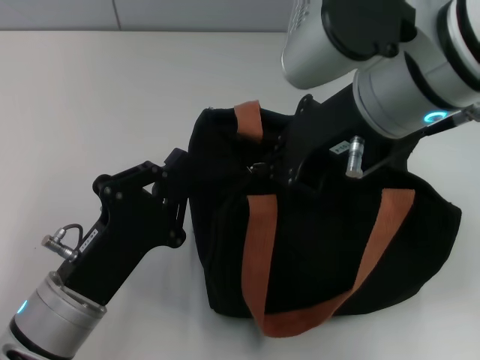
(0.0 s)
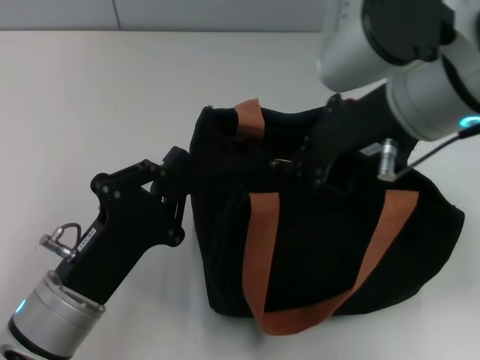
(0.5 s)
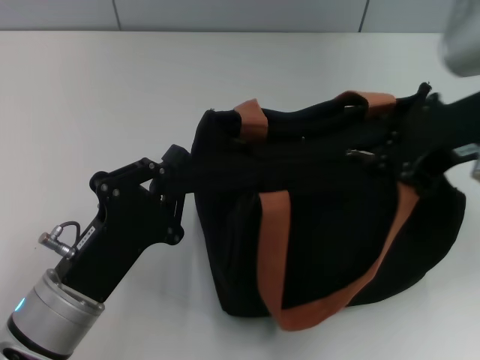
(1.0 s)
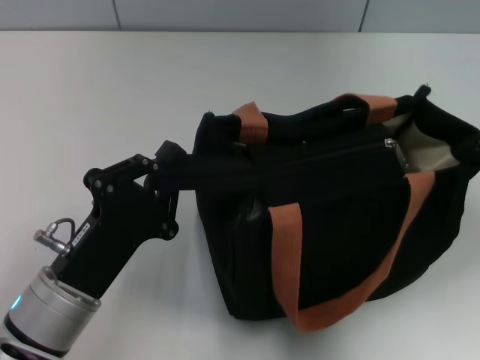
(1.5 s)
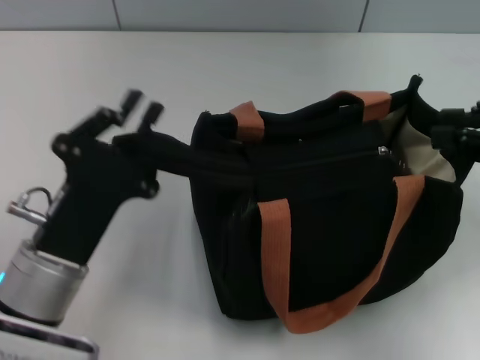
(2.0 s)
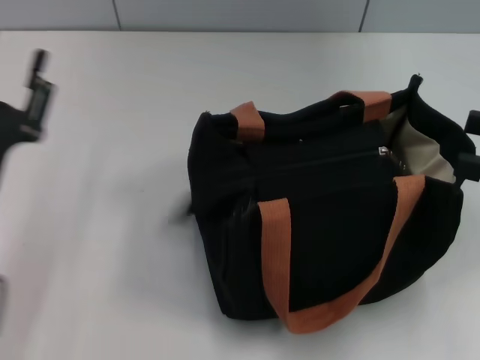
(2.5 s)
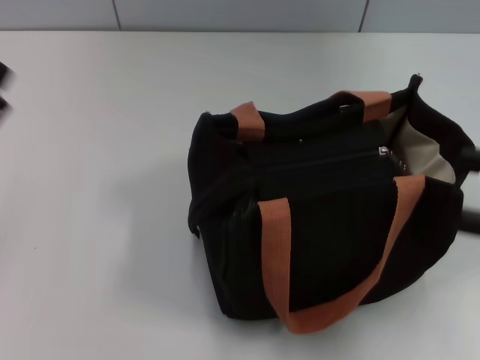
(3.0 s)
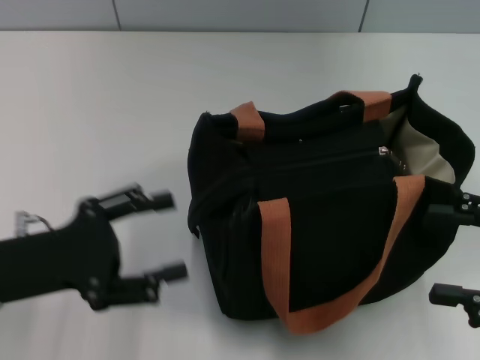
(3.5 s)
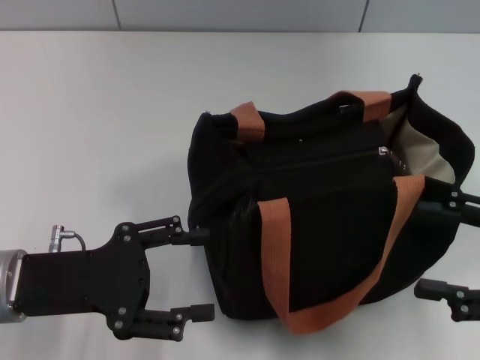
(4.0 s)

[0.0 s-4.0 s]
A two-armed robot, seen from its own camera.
0.0 to 2.0 s: The right gripper shifts about 20 cm to the right.
2.0 to 4.0 s: The right gripper shifts some 10 cm downward, and opens its fingers. The left gripper goes some 5 cm to the left, and opens up.

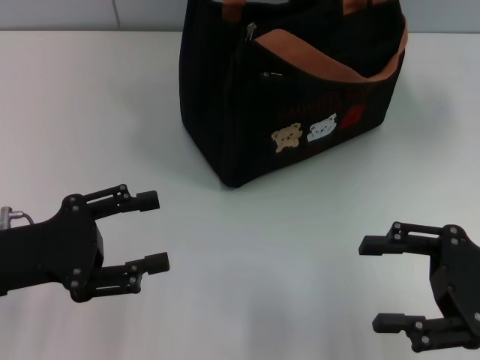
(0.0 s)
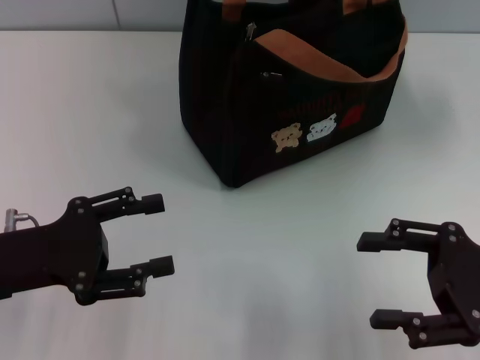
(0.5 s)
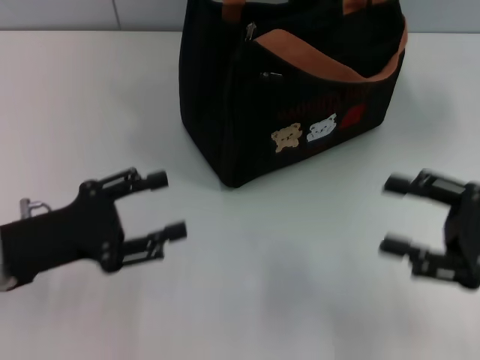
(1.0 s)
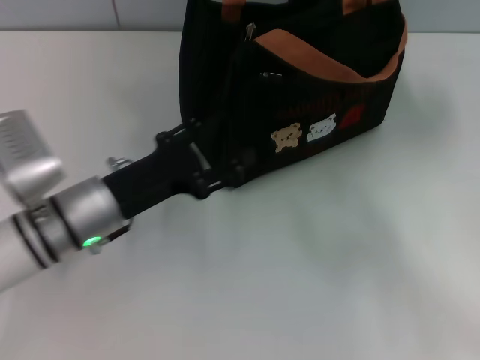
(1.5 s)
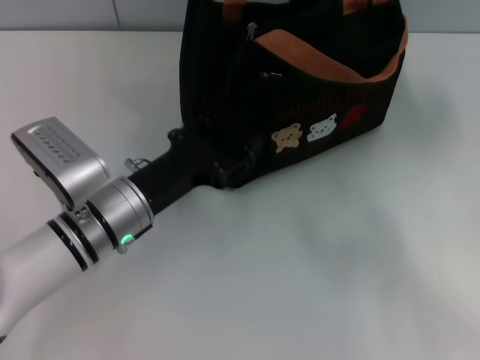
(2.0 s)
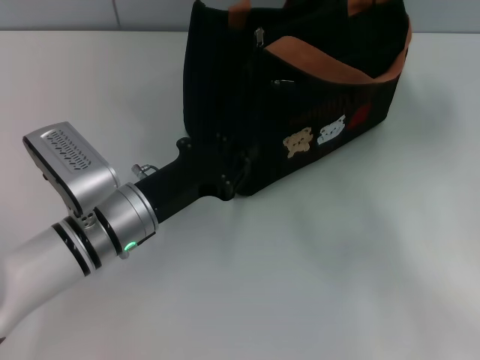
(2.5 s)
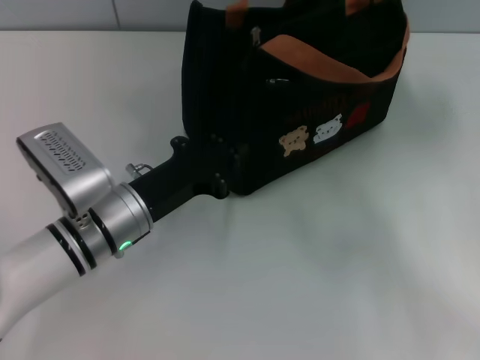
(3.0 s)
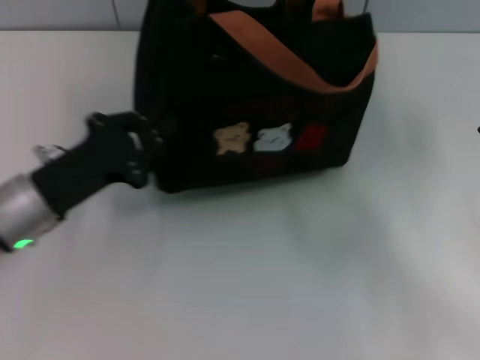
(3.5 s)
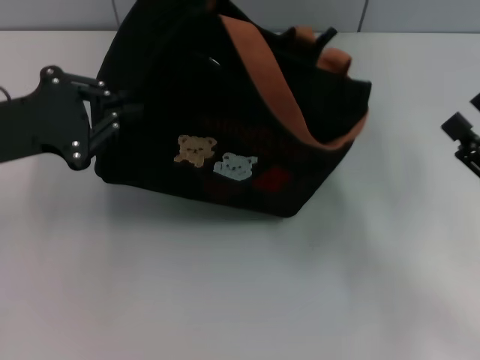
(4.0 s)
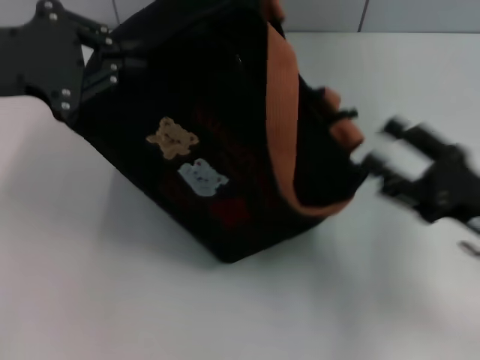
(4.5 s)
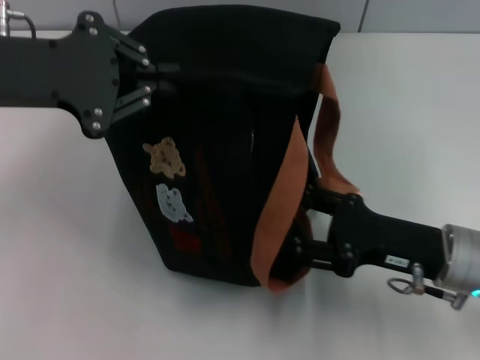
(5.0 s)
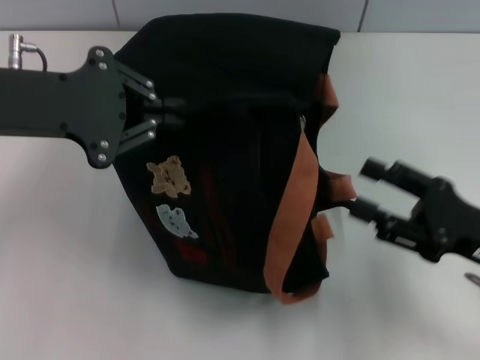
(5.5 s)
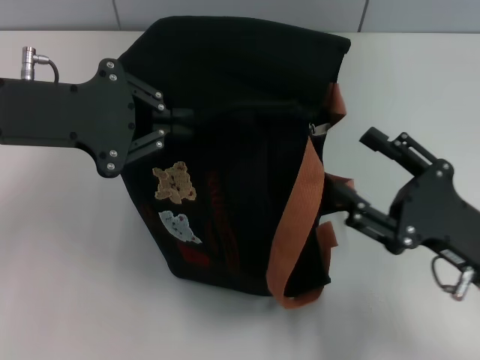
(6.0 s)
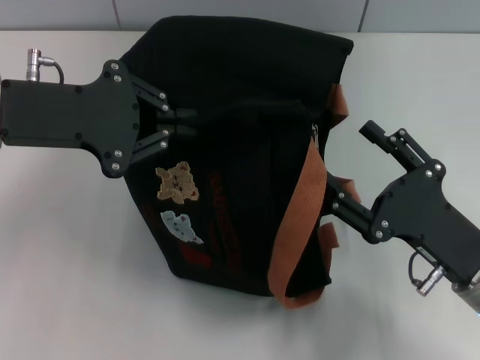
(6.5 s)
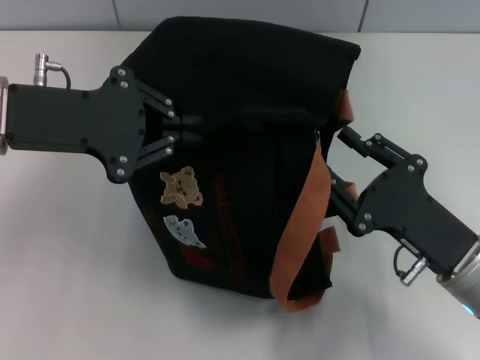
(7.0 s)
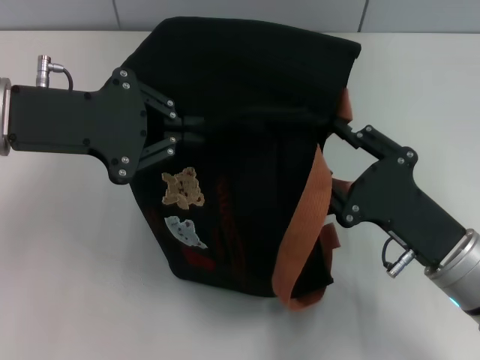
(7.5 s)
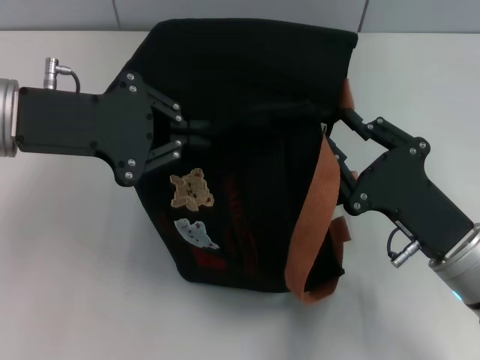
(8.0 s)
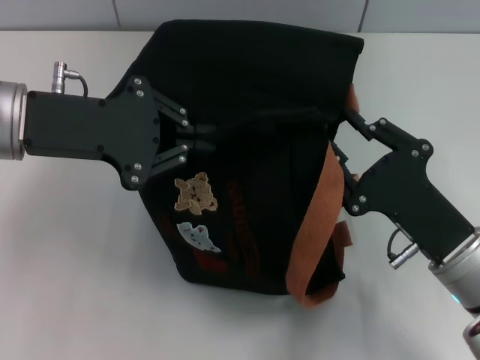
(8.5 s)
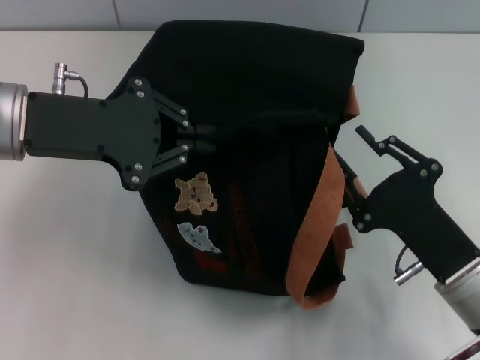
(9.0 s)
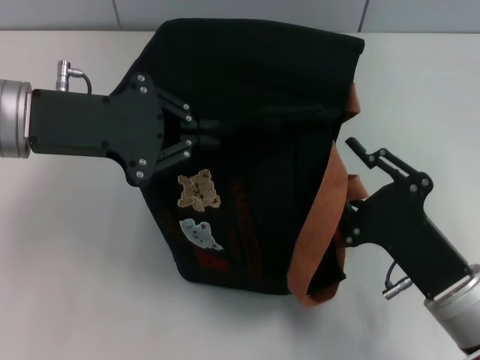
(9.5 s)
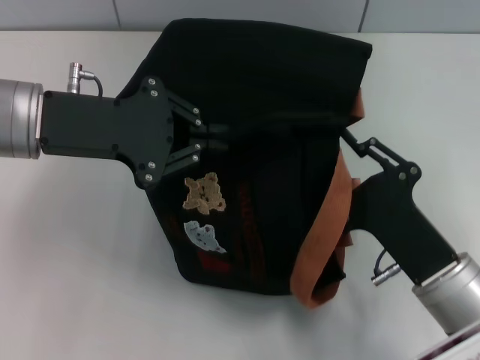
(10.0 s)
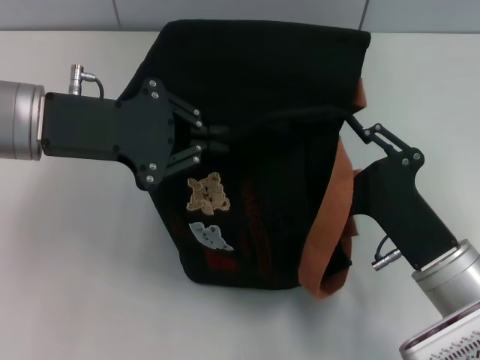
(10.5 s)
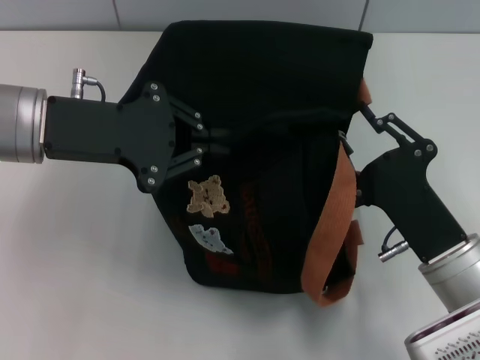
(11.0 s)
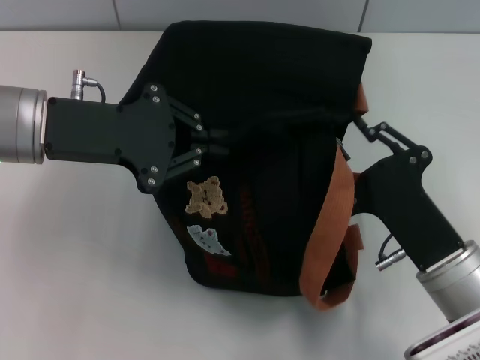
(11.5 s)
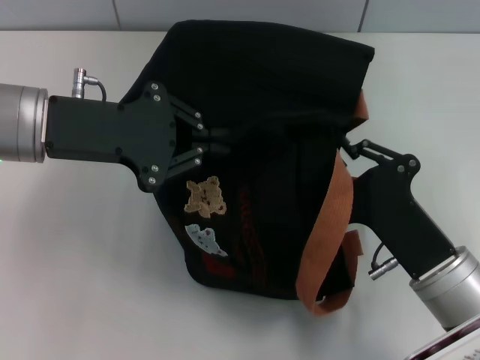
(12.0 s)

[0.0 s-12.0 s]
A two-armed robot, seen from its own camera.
0.0 to 2.0 s: The left gripper moves to the right, forward and downward, some 15 cm; the right gripper moves to the right, about 5 cm.
2.0 to 4.0 s: The left gripper travels to the left and upward by some 20 cm, and closes.
4.0 to 6.0 s: The right gripper heads to the left, covering about 5 cm, while the left gripper moves approximately 5 cm.
6.0 to 8.0 s: The right gripper closes its fingers.
10.0 to 12.0 s: Both grippers stay put.

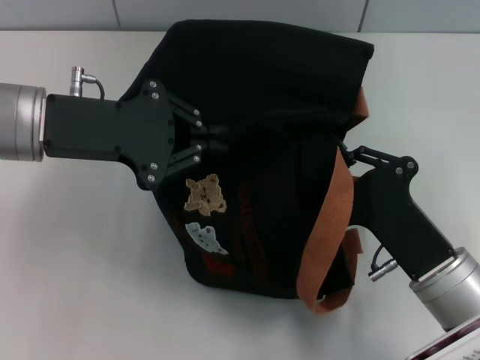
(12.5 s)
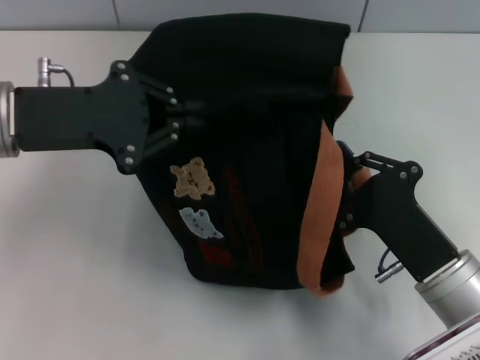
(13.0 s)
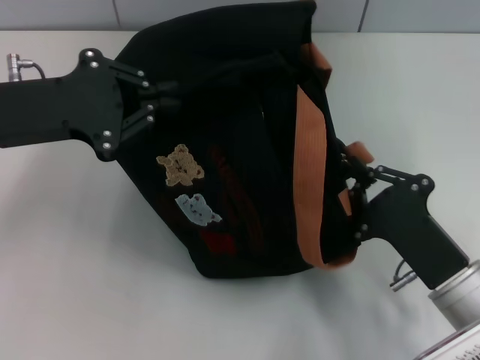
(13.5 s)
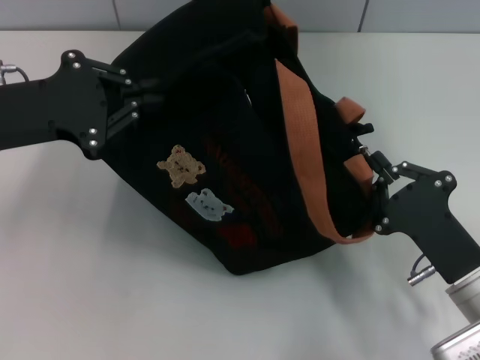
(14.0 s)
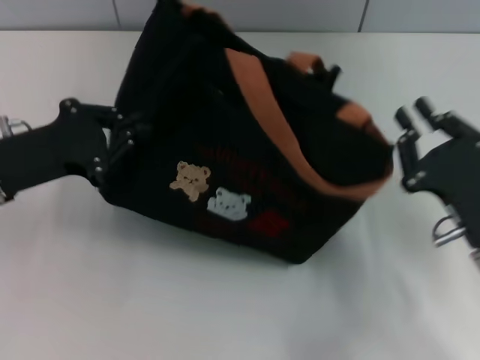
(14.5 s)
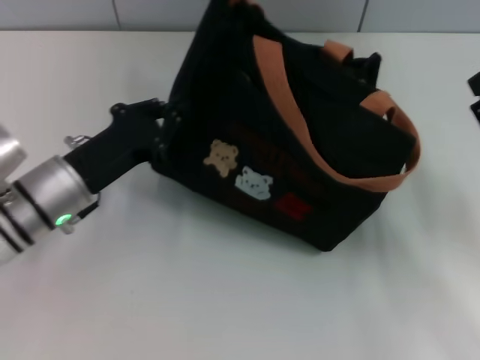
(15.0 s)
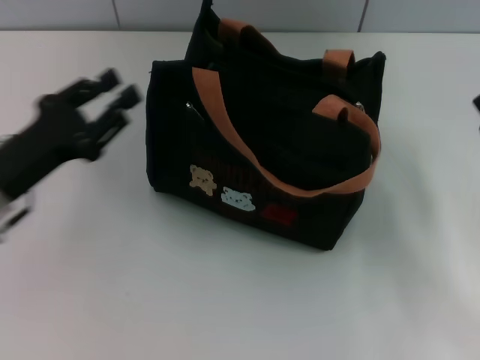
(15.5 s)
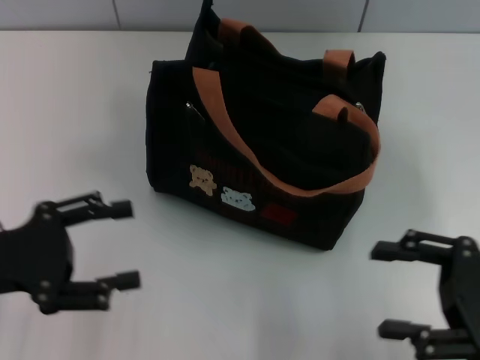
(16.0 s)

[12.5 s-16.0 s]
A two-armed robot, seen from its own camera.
Step, 14.5 to 15.0 s: Grab the bag with your left hand.
12.5 to 14.5 s: The right gripper is displaced to the right by some 5 cm. Meanwhile the left gripper travels downward and to the left by some 10 cm.
14.5 to 16.0 s: The left gripper shifts about 5 cm backward, reaches some 5 cm to the right, then returns, and opens, while the right gripper moves to the right, approximately 5 cm, and opens its fingers.
